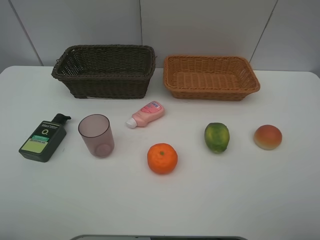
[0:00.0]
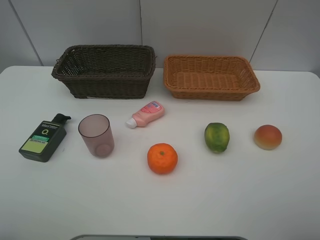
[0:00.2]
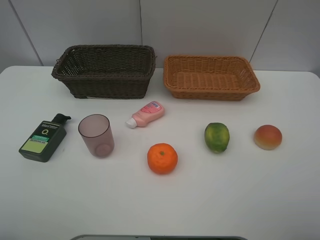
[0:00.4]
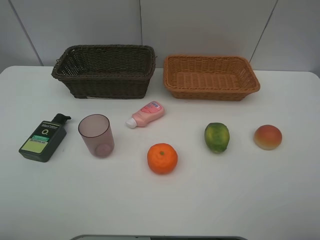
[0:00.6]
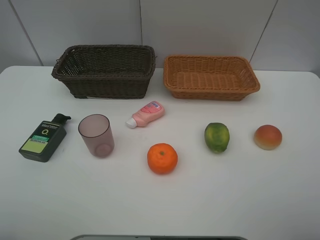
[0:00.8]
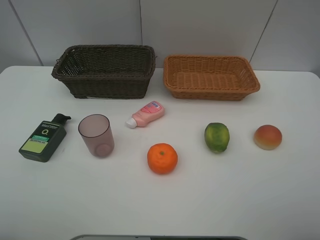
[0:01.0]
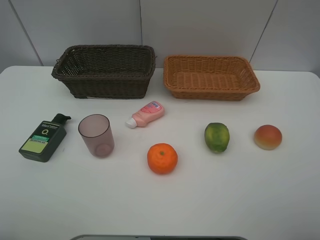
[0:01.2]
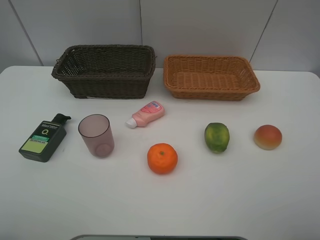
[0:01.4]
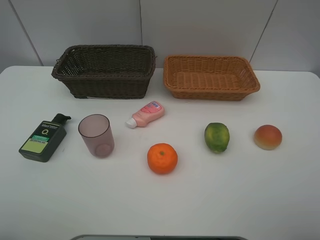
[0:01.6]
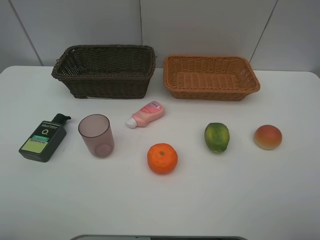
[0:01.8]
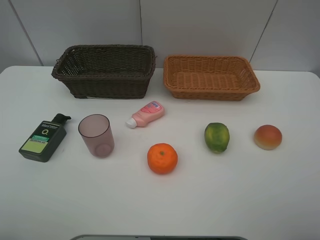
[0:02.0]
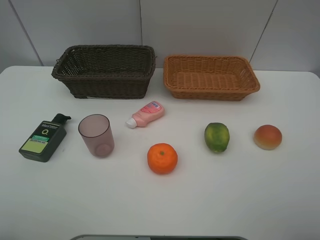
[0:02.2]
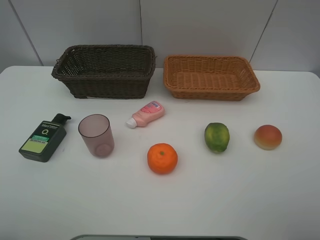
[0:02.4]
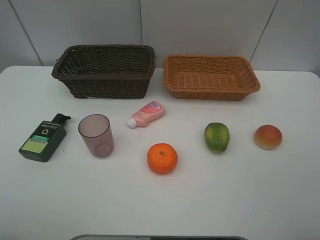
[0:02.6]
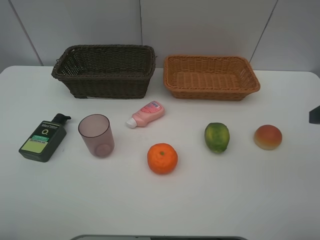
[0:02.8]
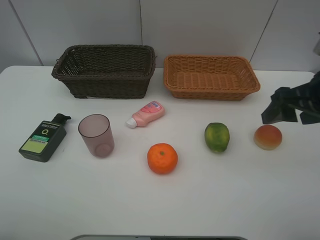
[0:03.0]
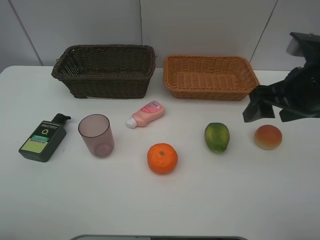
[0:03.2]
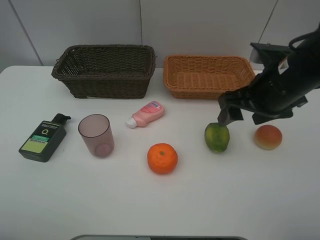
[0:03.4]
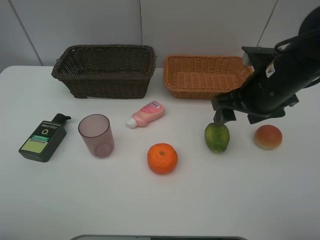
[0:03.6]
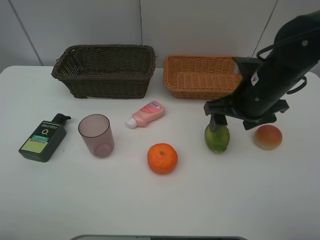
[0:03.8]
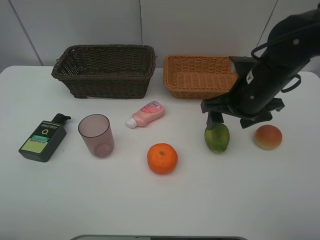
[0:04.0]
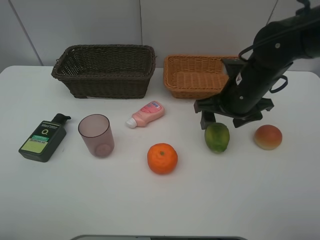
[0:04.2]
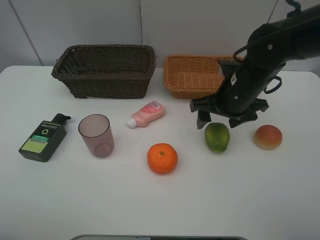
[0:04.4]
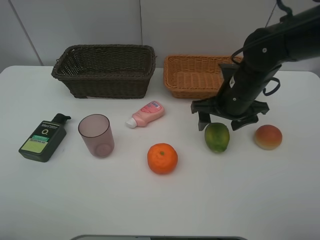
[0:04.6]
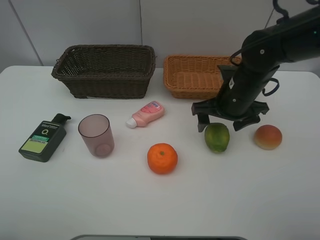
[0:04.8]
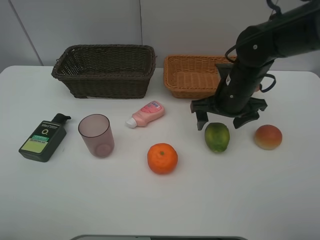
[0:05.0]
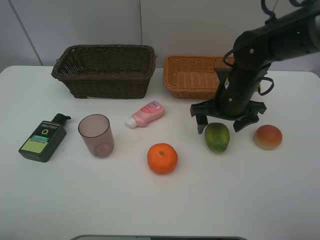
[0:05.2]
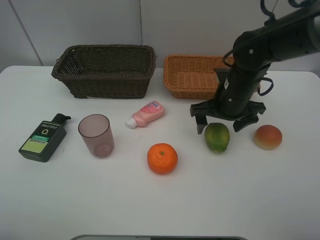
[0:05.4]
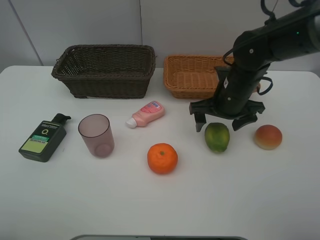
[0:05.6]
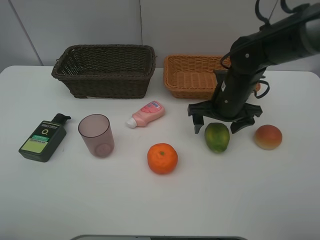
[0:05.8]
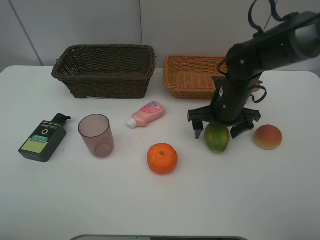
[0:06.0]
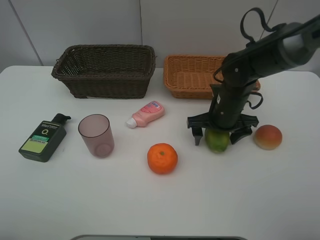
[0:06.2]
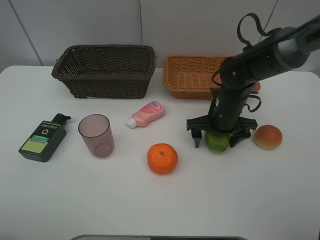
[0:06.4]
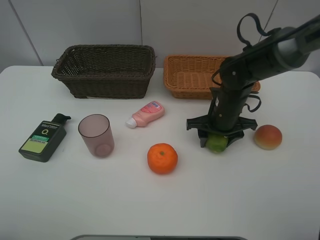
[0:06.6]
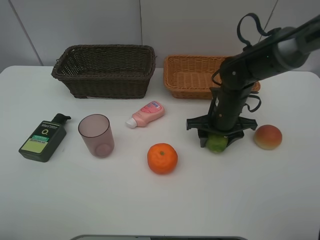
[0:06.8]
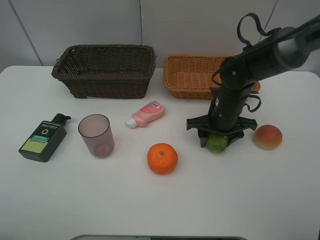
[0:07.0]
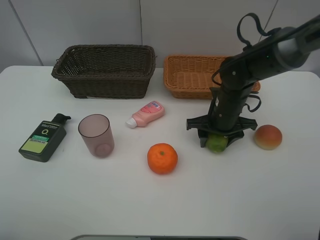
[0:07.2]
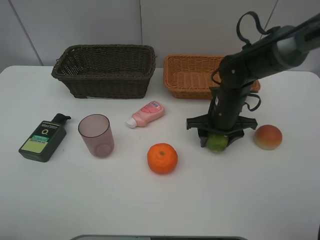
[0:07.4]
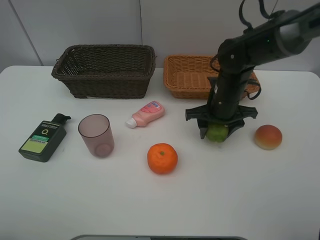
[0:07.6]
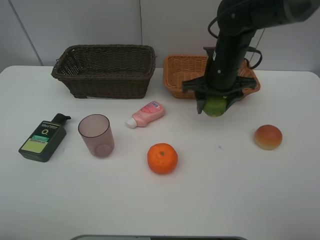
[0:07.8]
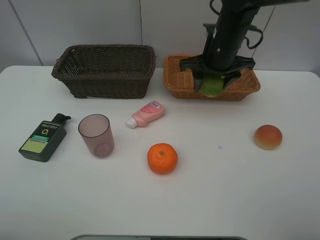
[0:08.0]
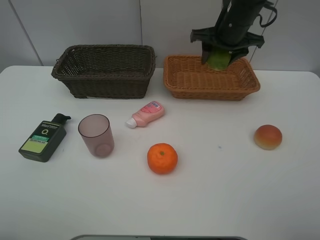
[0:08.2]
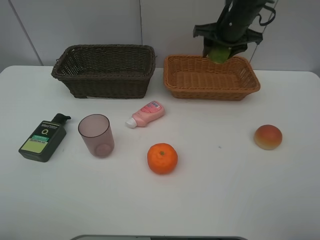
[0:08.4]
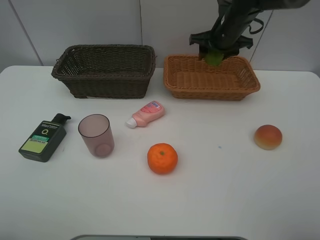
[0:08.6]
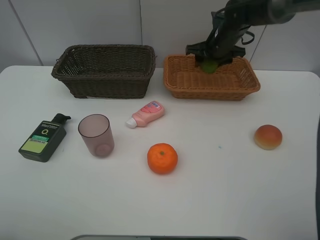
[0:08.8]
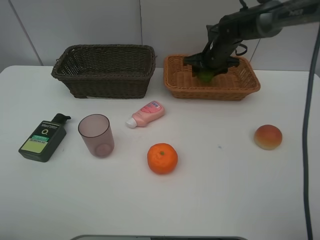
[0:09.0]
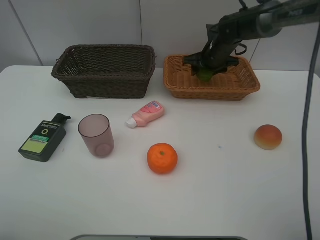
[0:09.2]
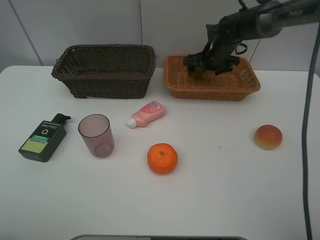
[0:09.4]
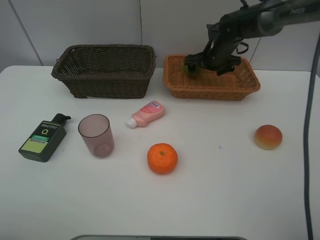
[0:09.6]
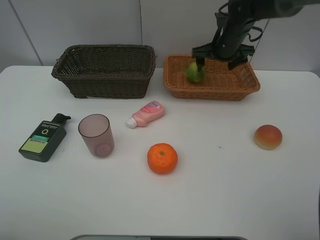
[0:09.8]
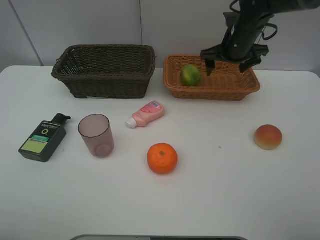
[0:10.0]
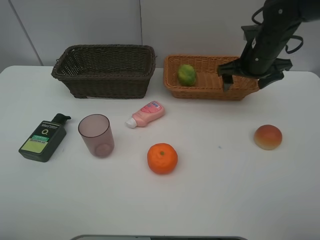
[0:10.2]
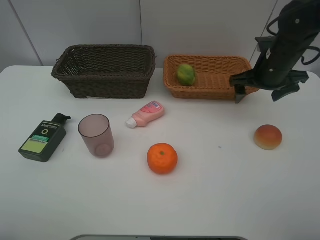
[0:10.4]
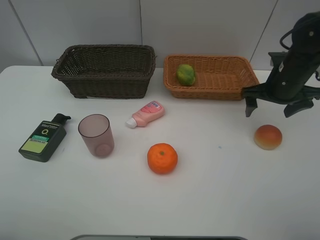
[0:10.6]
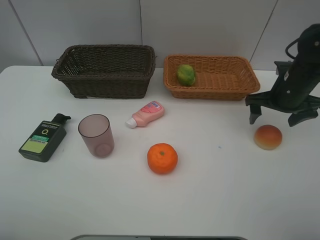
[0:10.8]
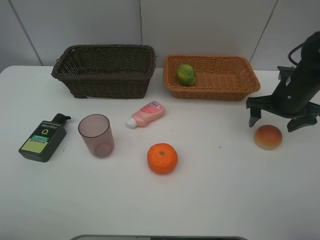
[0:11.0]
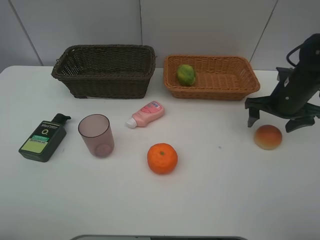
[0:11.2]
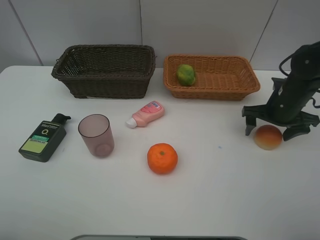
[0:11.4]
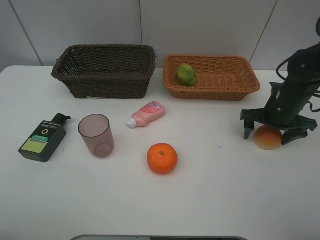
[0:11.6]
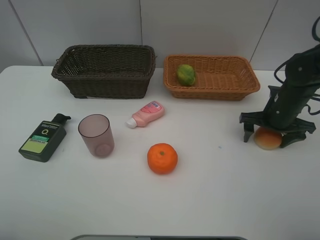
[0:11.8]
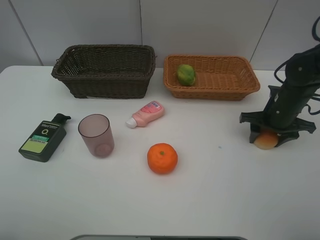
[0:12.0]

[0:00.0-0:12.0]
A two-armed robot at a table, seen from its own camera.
Task of the whole recording: place multiple objects separately in different baskets.
0:00.0 to 0:01.6: The two grippers keep their place.
0:01.6 to 0:03.0: The right gripper moves forward, roughly 20 cm.
0:03.0 to 0:04.4: The right gripper goes some 15 cm to the left, forward and downward.
0:04.4 to 0:06.0: The right gripper ends up about 5 cm from where it was, and opens.
0:06.0 to 0:07.6: The right gripper closes.
0:07.6 to 0:09.0: The right gripper travels forward by approximately 15 cm.
0:09.0 to 0:10.4: The right gripper moves backward and to the right, approximately 15 cm, and opens.
0:10.4 to 0:12.0: The right gripper travels downward by about 10 cm, and closes.

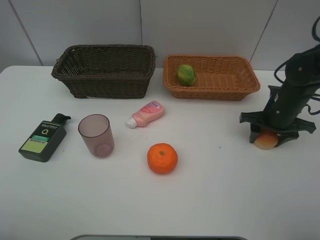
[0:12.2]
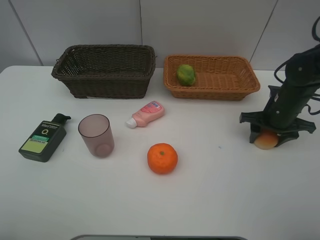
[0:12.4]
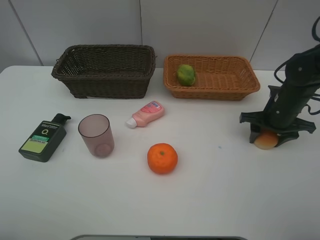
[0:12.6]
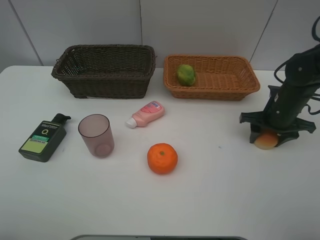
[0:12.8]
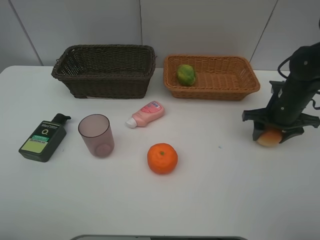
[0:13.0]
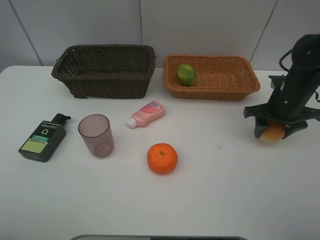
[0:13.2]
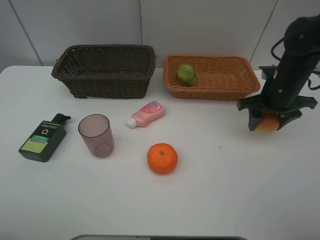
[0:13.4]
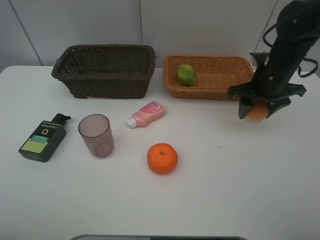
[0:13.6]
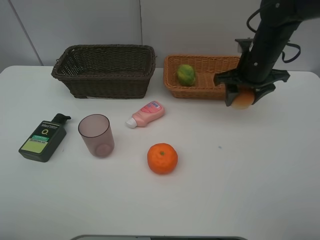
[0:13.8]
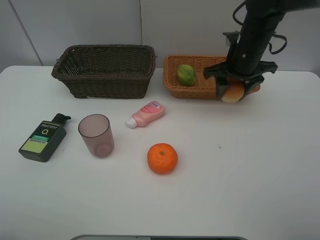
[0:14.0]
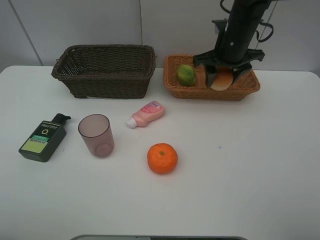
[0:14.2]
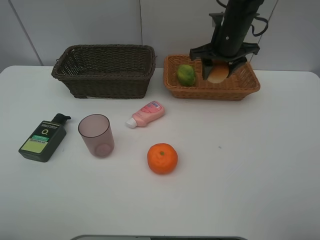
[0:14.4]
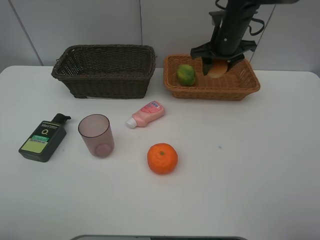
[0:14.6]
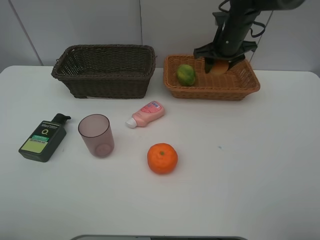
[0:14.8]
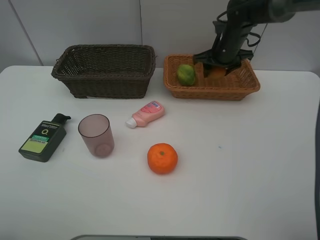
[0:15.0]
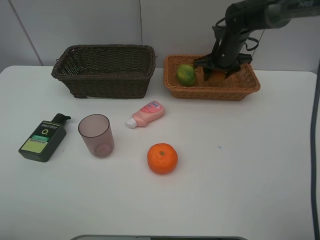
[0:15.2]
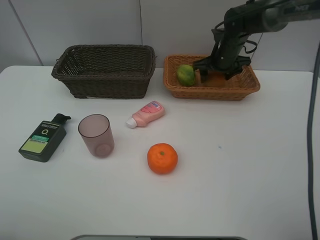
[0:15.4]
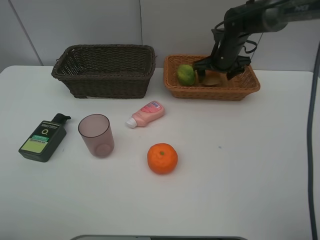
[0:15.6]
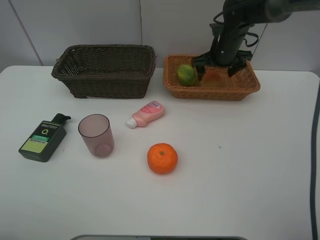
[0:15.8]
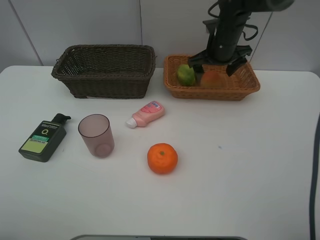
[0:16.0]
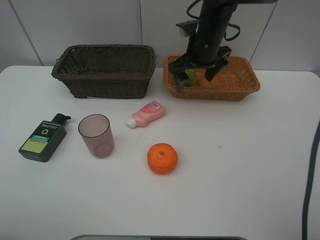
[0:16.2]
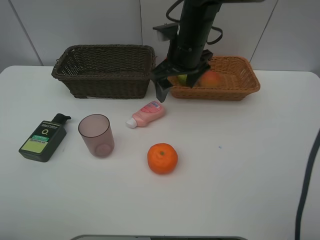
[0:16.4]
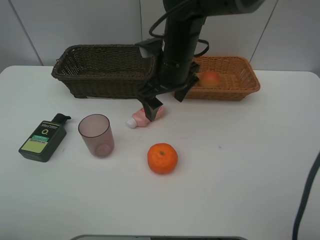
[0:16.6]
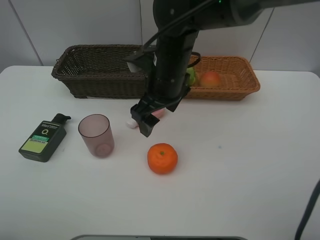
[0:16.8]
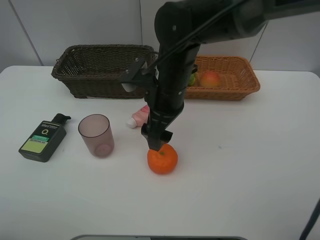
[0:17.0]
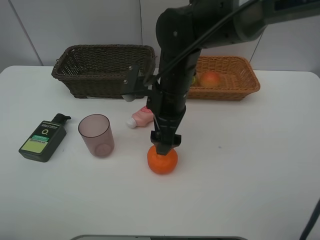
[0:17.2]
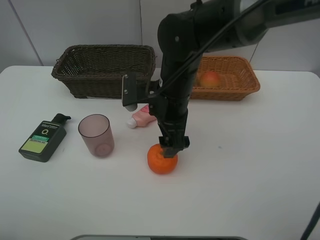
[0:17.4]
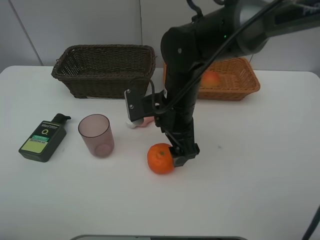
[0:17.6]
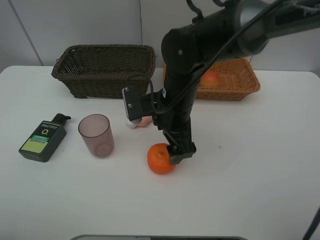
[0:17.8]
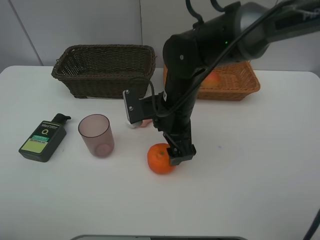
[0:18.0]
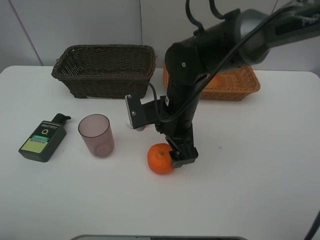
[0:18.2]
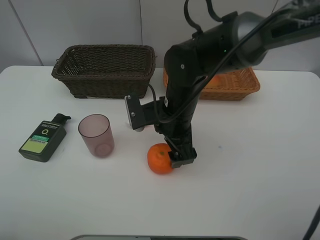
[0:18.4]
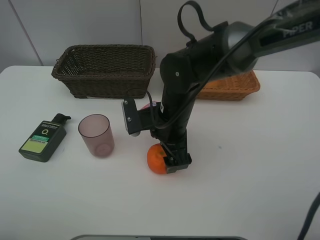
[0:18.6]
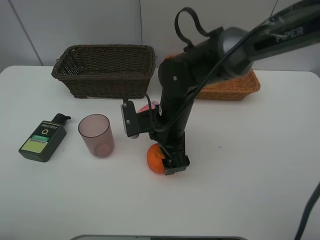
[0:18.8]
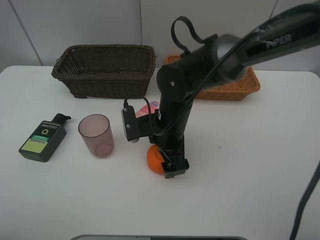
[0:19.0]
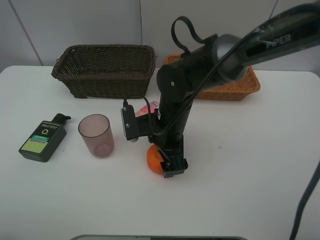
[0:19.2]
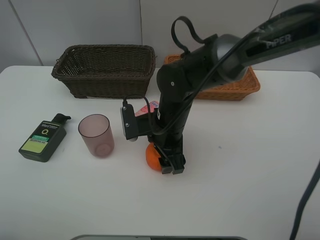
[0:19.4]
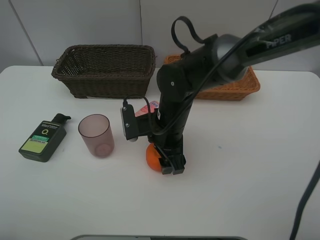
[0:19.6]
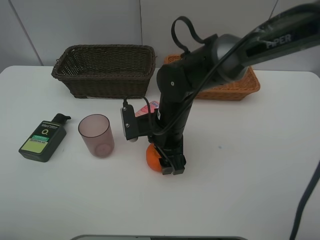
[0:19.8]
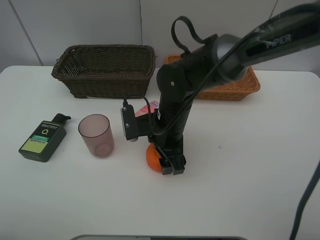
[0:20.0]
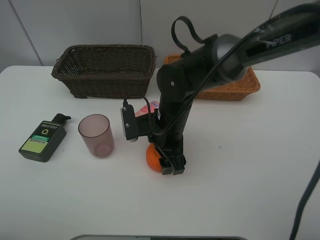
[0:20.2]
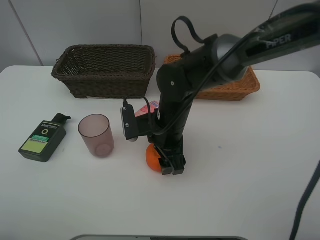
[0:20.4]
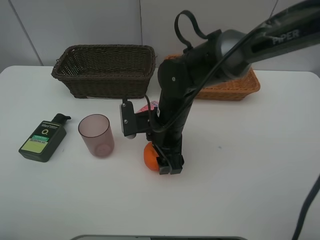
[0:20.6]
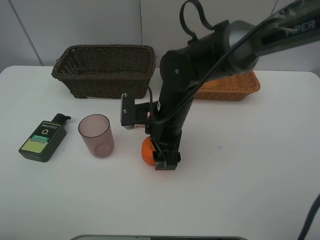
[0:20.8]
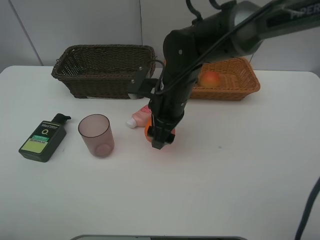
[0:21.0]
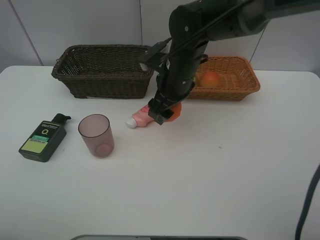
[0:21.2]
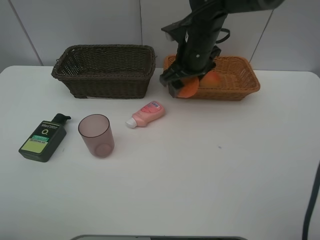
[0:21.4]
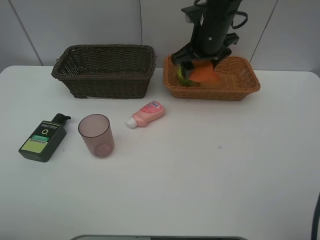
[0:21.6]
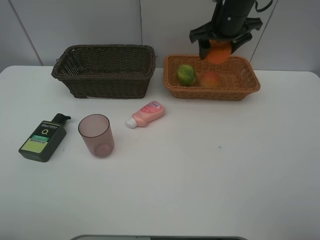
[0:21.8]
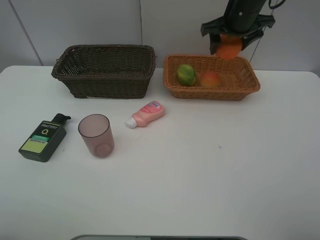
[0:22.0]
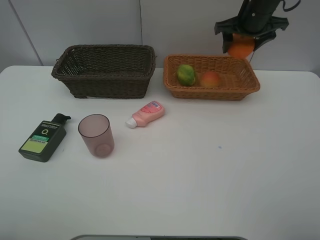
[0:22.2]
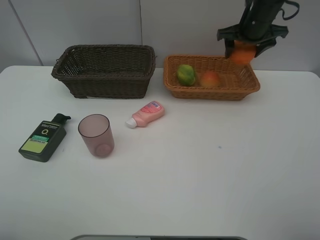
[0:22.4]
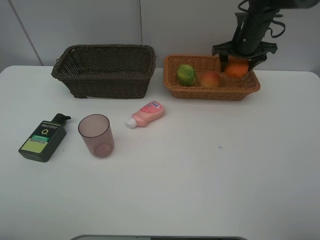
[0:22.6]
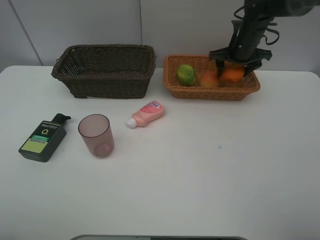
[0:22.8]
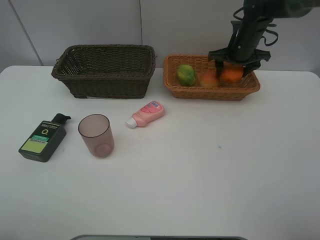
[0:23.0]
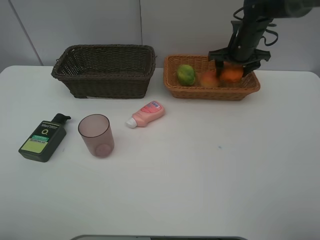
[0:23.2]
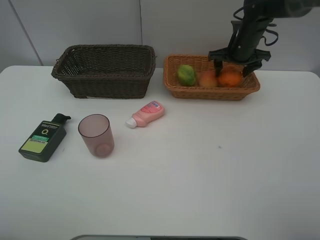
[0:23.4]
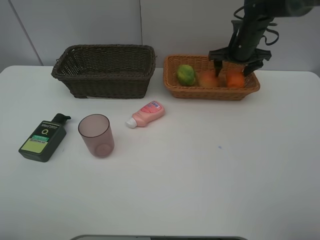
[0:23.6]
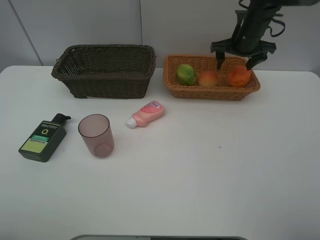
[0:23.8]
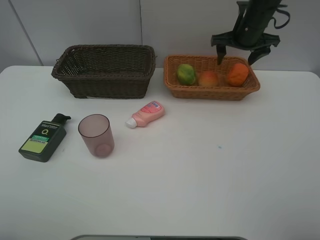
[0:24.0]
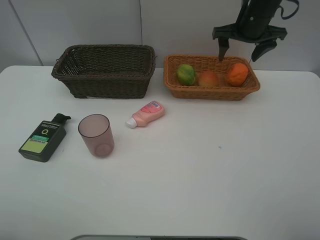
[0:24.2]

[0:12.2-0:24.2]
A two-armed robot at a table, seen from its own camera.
Task of the whole recording: place multiple objects separately in different baskets.
0:12.2 to 0:13.8: The right gripper shifts roughly 15 cm upward, to the left and forward.
0:13.8 to 0:15.2: The right gripper goes some 10 cm forward.
0:15.2 to 0:16.6: The right gripper moves backward and to the left, some 20 cm, and opens its fingers.
0:16.6 to 0:18.2: The right gripper heads downward, covering roughly 5 cm.
0:18.2 to 0:19.8: The right gripper closes its fingers.
0:19.8 to 0:21.2: The right gripper goes about 10 cm upward and forward.
0:21.2 to 0:22.6: The right gripper travels to the right and forward by about 20 cm.
0:22.6 to 0:24.2: The right gripper goes roughly 5 cm upward.
